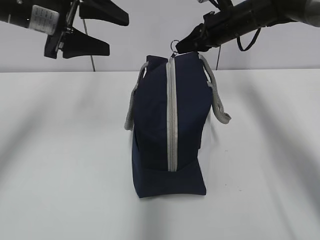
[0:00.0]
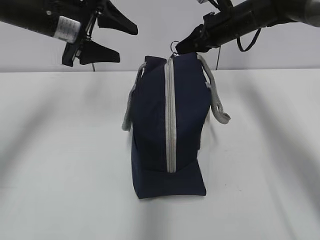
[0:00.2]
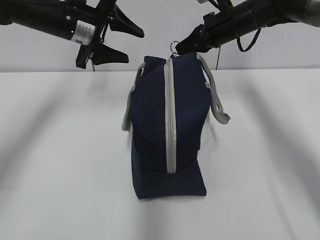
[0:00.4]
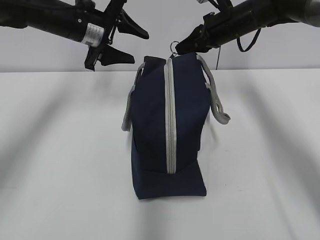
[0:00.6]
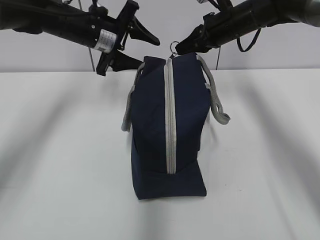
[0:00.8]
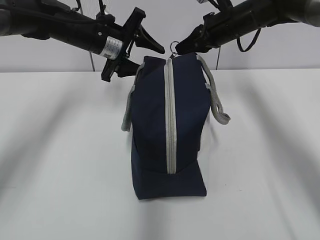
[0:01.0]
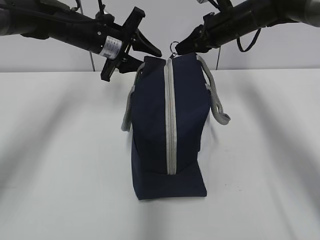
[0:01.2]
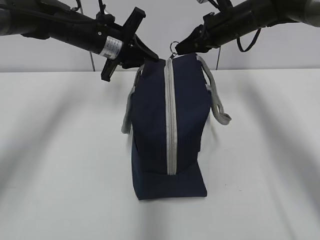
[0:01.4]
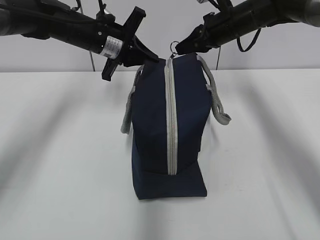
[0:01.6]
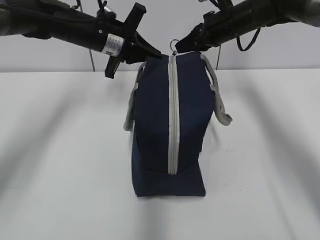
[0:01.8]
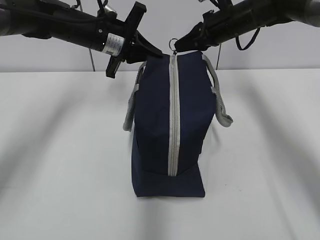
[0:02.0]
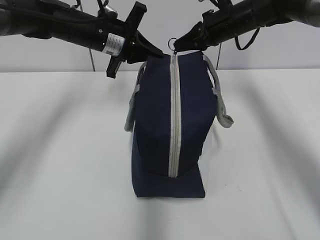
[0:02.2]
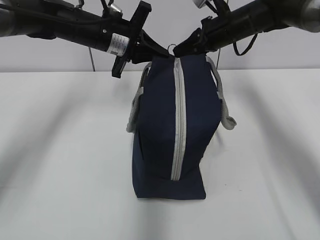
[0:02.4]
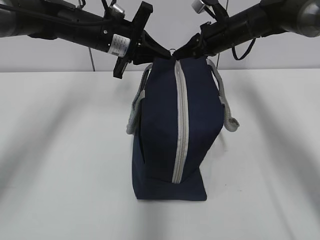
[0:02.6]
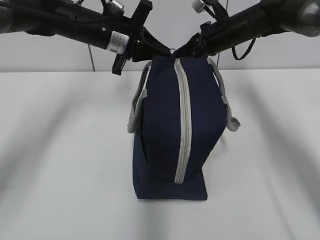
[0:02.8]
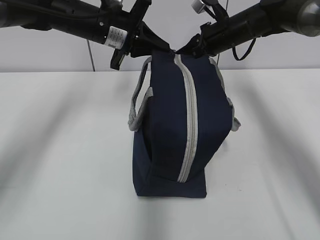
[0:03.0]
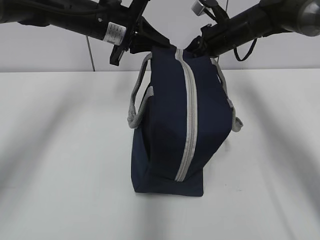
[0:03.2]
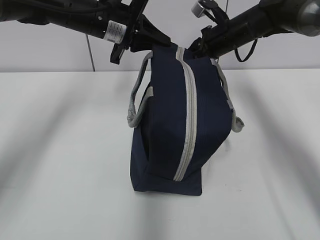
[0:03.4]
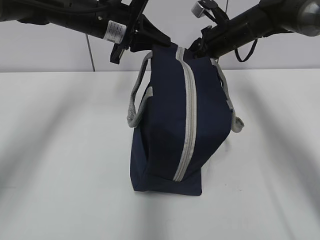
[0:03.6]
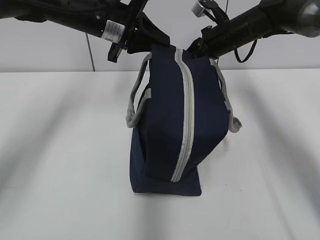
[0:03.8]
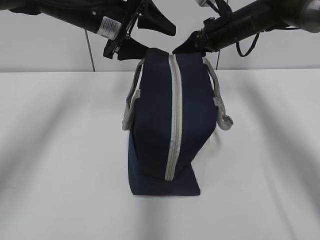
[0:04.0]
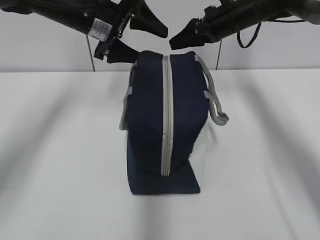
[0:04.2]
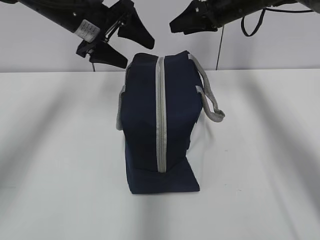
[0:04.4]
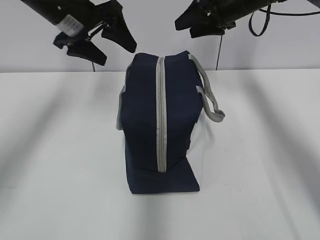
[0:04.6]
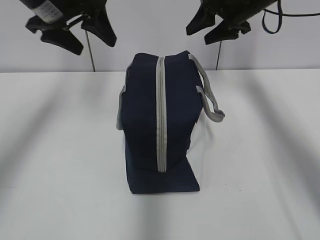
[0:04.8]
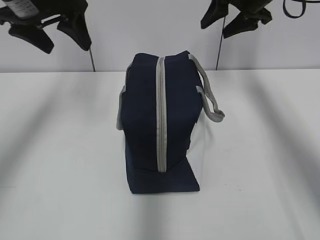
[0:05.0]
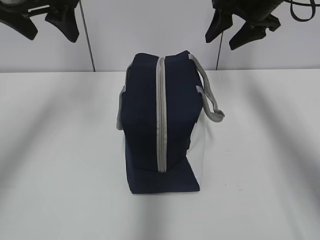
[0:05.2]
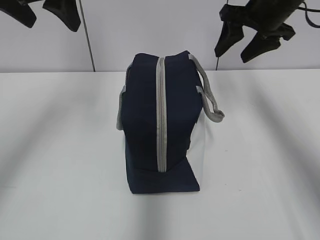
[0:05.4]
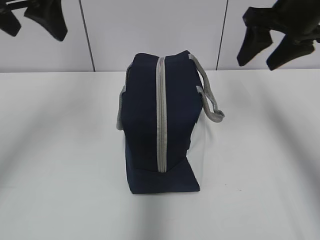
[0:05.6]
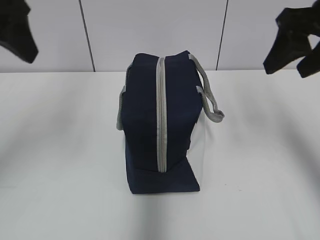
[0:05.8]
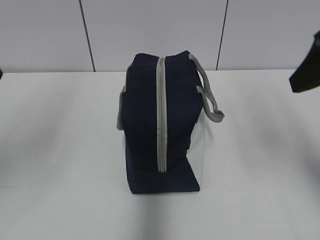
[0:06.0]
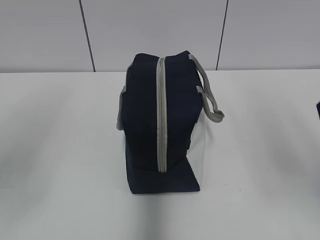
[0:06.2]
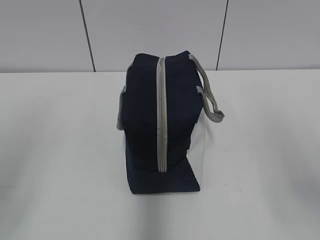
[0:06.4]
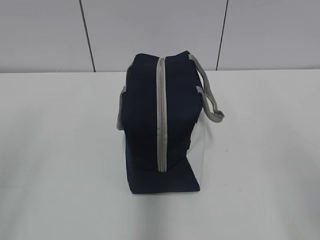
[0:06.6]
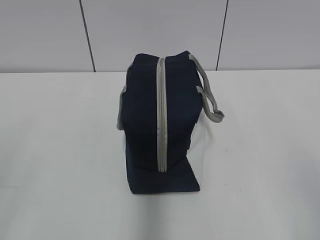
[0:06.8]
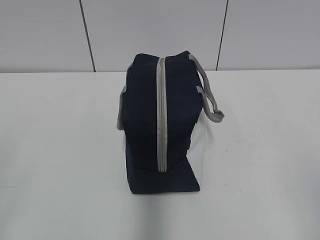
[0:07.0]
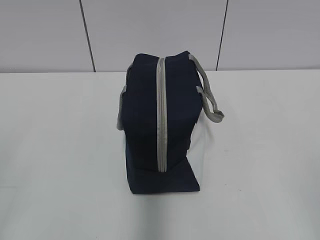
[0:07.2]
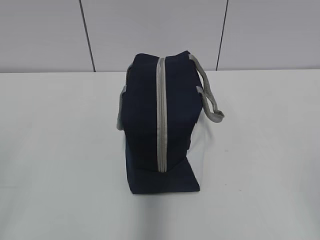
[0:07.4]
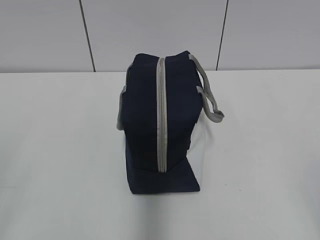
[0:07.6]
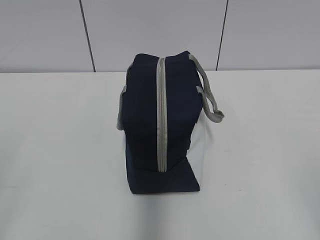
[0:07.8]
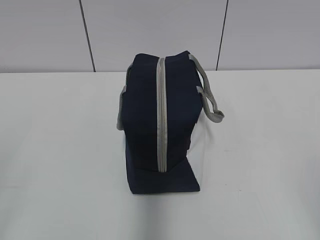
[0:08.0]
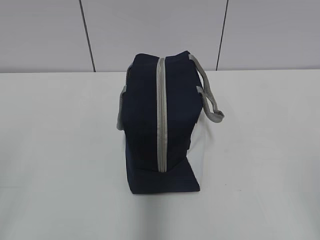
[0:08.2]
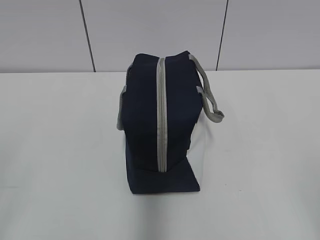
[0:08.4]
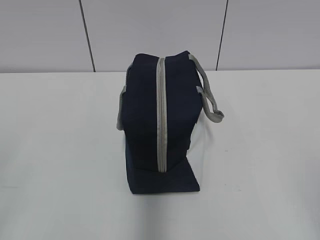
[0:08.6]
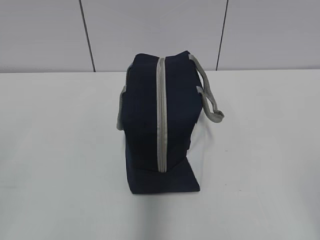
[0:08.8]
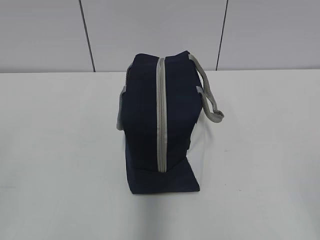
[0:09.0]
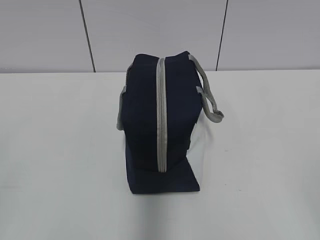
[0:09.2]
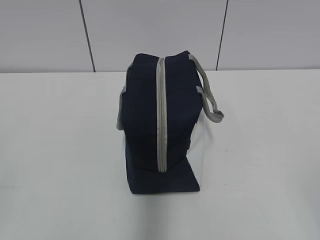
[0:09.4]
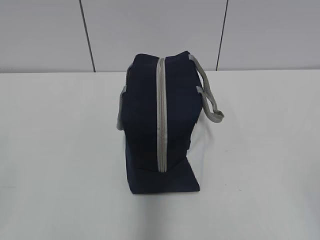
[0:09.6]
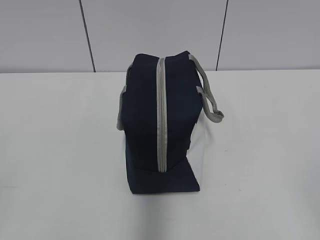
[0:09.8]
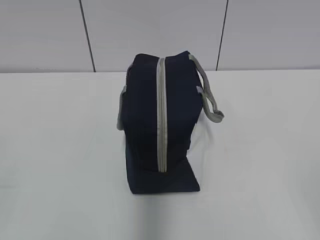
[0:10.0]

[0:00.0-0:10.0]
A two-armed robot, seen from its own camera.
0:00.0 to 0:01.4: The left gripper moves forward, downward and to the right, some 15 cm, and closes its fingers.
0:01.4 to 0:02.8: The grippers stay close to where they were, moving slightly.
0:02.8 to 0:04.2: The left gripper opens its fingers, while the right gripper opens.
0:04.2 to 0:05.8: The left gripper is displaced backward, upward and to the left by roughly 20 cm, while the right gripper is displaced backward and upward by roughly 25 cm.
0:05.8 to 0:07.2: The right gripper travels backward by about 30 cm. Meanwhile the left gripper shifts roughly 25 cm backward, downward and to the left.

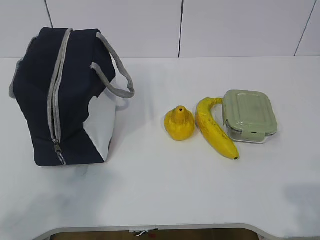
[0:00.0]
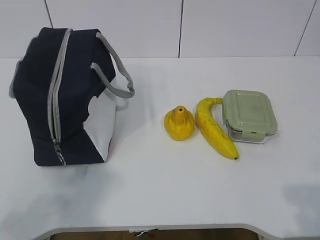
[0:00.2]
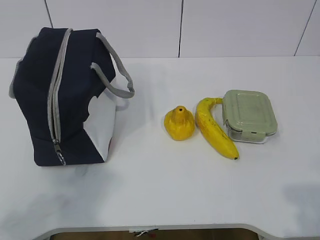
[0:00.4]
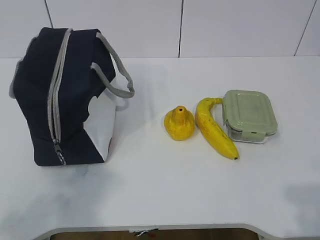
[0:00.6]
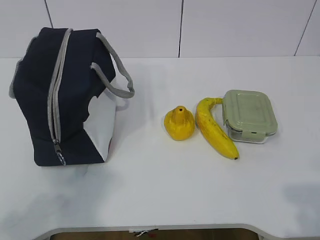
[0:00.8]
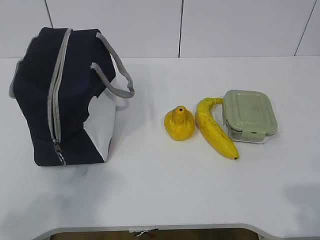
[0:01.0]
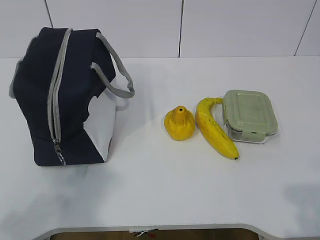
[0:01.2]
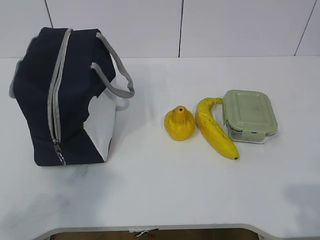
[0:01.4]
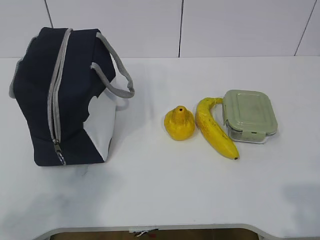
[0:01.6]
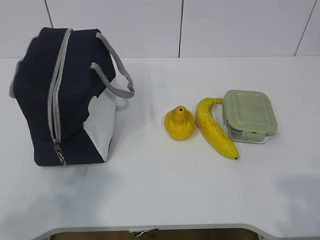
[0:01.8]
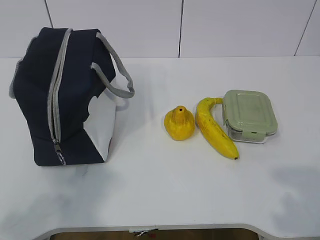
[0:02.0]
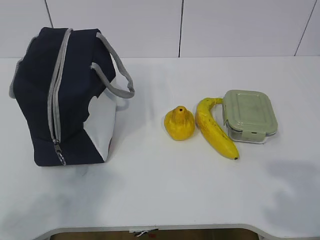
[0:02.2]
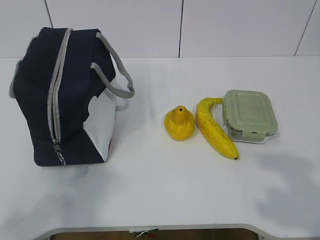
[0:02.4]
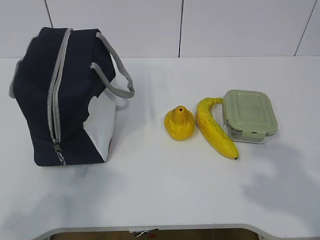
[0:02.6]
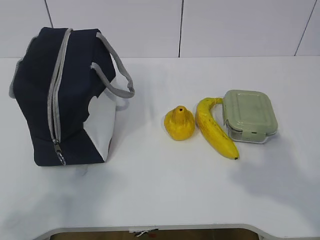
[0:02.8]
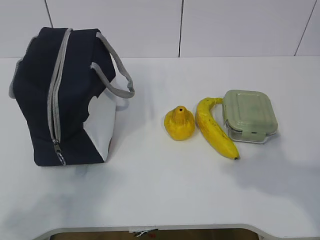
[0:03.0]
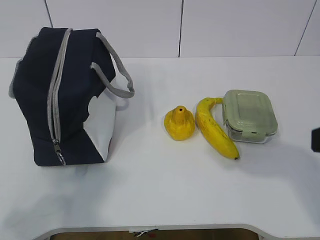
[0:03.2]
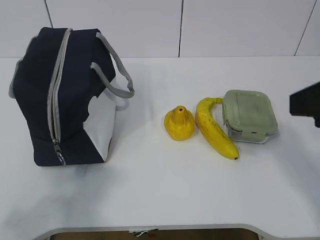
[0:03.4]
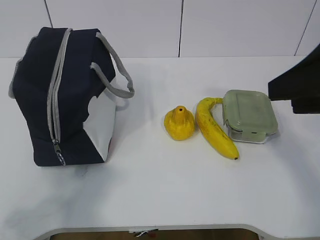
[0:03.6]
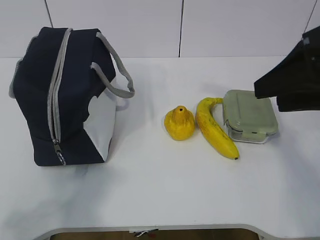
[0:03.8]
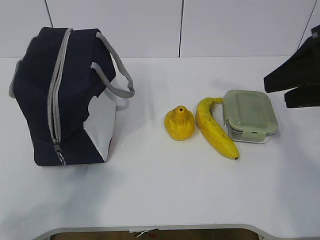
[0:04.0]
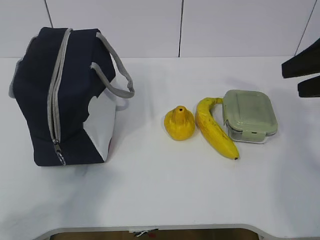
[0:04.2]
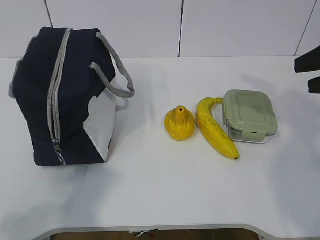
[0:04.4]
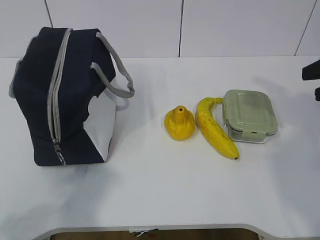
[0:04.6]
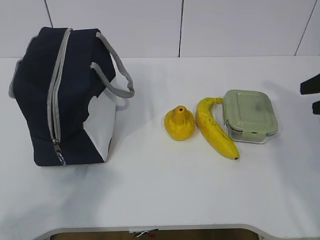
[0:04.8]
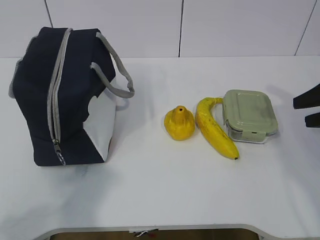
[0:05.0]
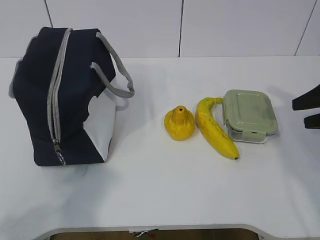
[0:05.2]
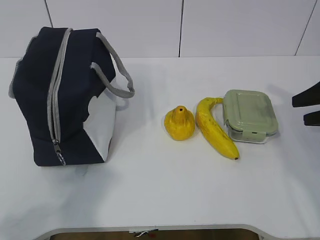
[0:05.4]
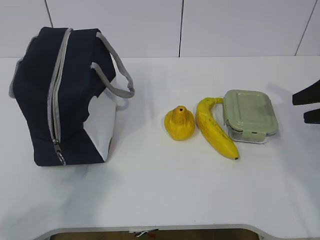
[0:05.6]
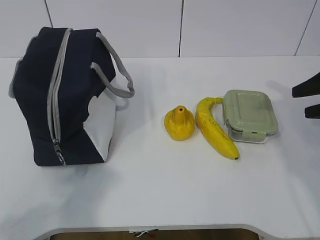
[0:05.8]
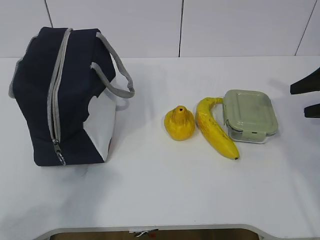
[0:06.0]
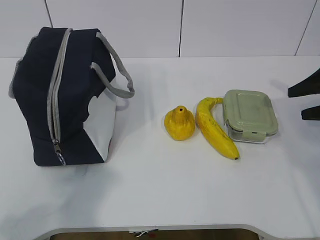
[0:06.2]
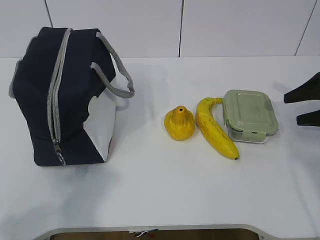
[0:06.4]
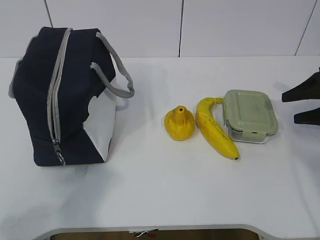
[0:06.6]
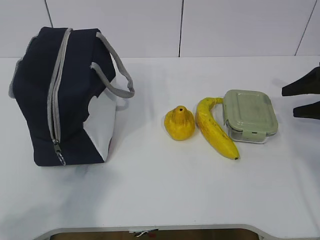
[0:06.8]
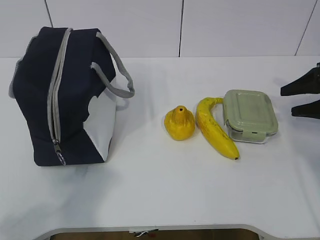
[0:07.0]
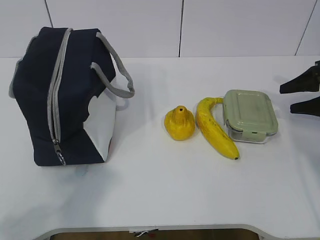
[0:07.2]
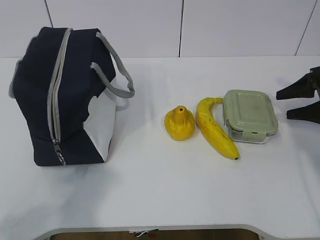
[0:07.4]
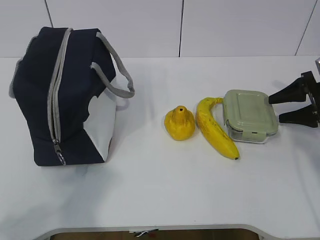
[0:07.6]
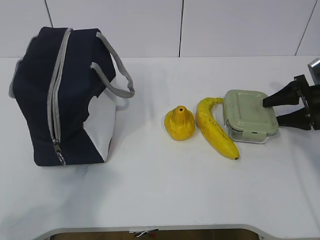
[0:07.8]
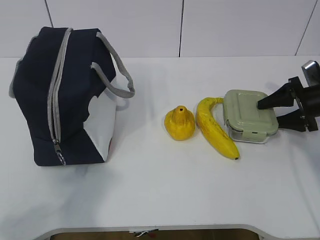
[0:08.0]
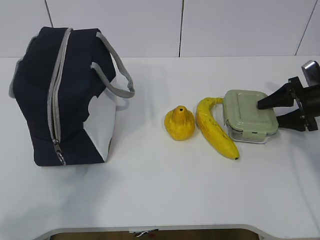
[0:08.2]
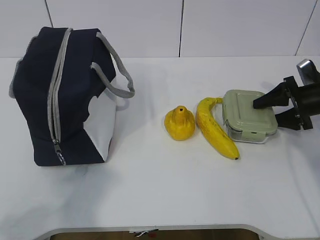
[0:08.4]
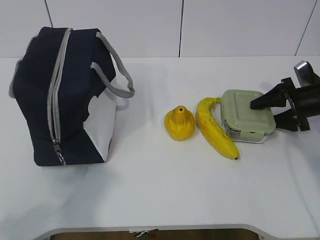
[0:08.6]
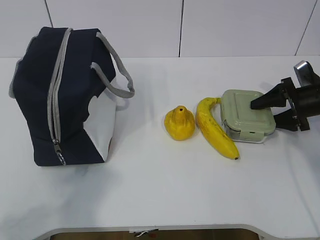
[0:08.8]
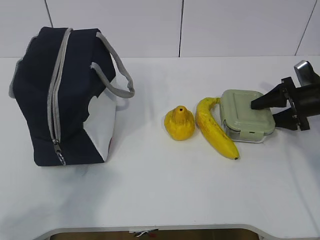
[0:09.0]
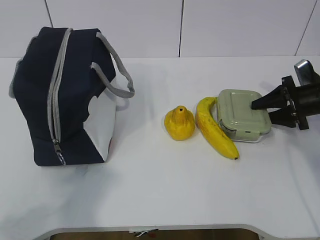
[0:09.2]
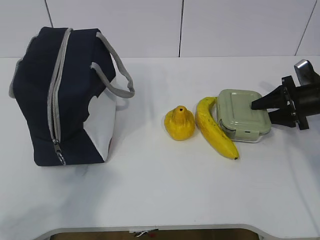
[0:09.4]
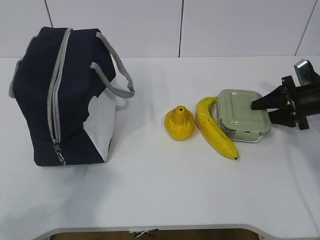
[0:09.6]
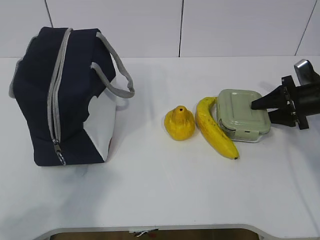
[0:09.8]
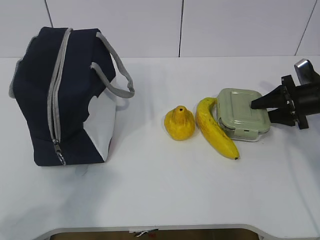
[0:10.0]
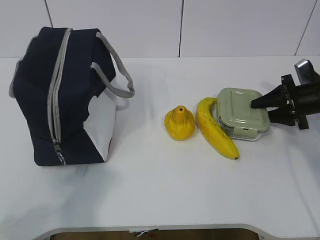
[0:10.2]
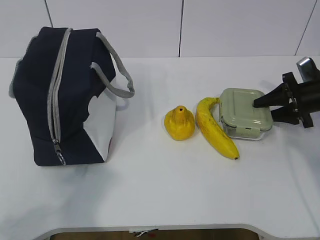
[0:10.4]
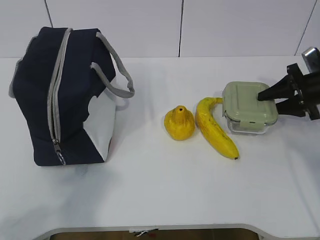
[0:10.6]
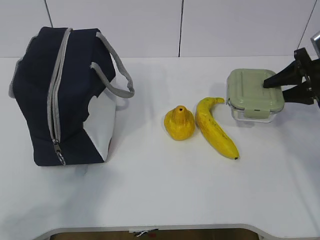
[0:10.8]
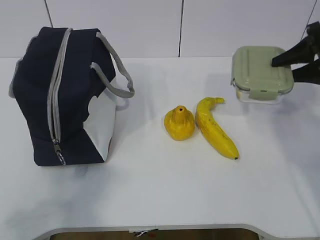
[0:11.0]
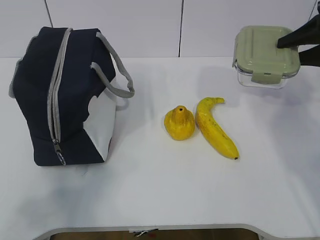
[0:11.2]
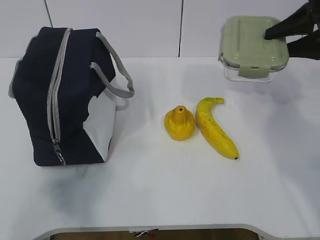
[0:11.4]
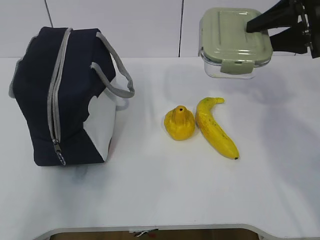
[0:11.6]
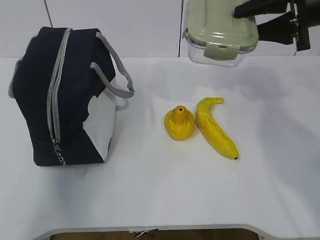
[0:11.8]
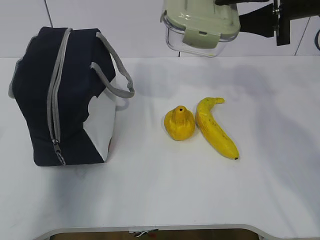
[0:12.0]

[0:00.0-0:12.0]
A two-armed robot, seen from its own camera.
Step, 0:00.0 to 0:09.2: Grasp the box with the right gripper.
0:01.6 to 0:03.0: The right gripper travels forward by about 10 cm.
0:03.0 to 0:04.4: The right gripper moves forward, about 15 cm.
0:04.4 to 0:06.0: The right gripper moves downward, forward and to the right, approximately 15 cm.
0:06.0 to 0:07.6: The right gripper heads downward and forward, covering roughly 10 cm.
0:07.6 to 0:09.0: The grippers move only a little.
0:09.0 to 0:10.4: The two grippers keep their place.
0:10.4 to 0:12.0: The right gripper goes about 25 cm upward and to the left. The left gripper shifts roughly 15 cm forward and upward.
